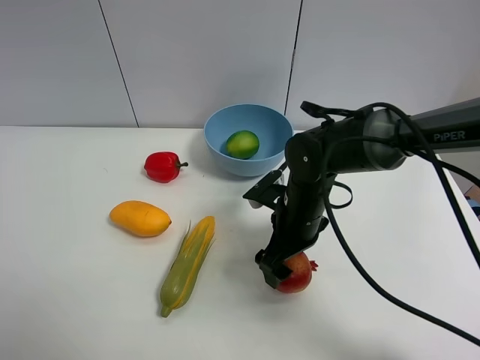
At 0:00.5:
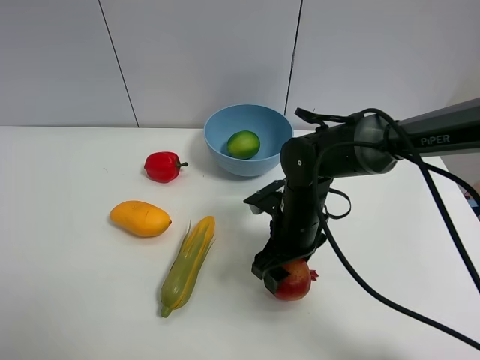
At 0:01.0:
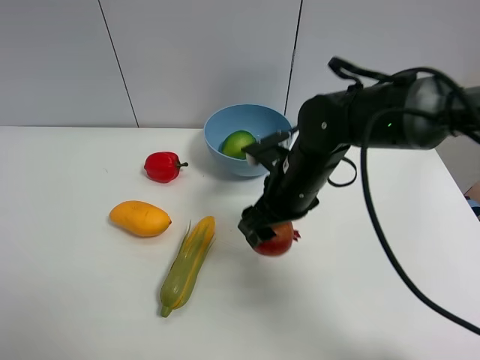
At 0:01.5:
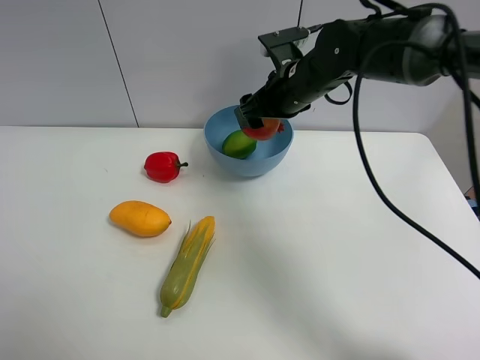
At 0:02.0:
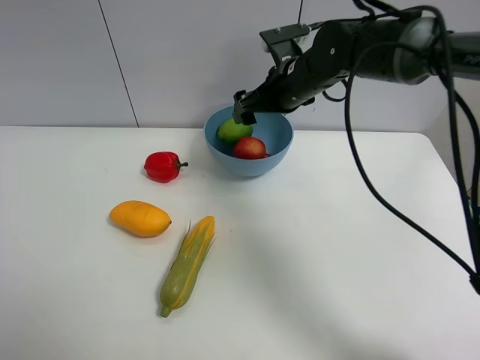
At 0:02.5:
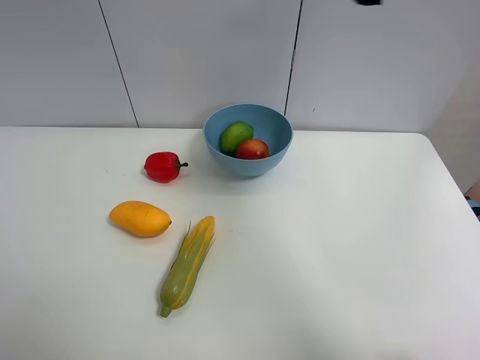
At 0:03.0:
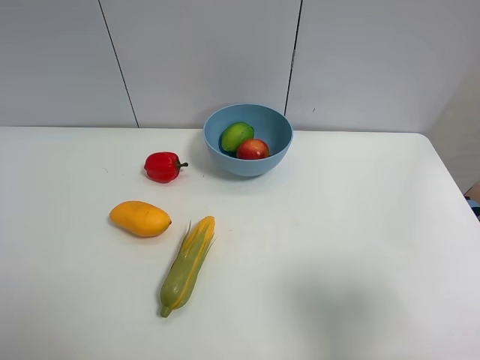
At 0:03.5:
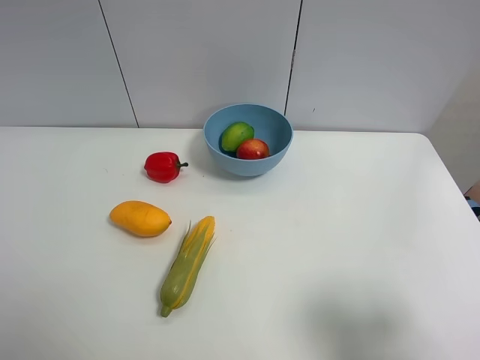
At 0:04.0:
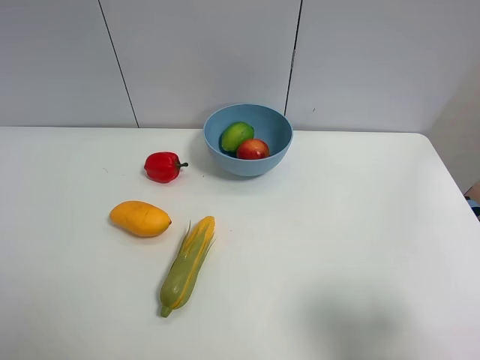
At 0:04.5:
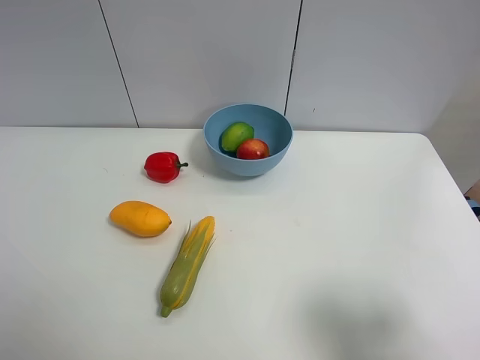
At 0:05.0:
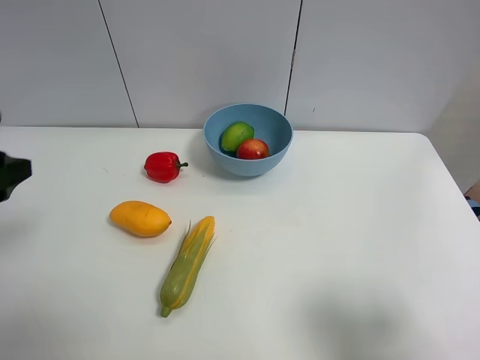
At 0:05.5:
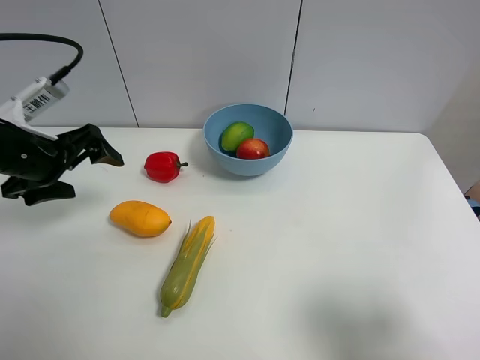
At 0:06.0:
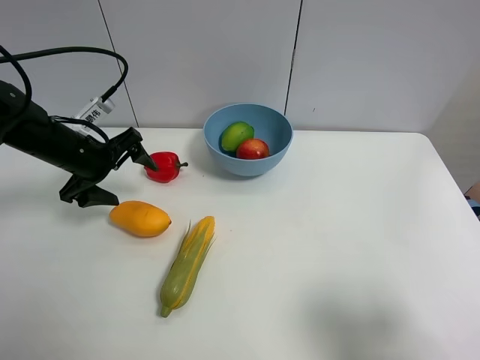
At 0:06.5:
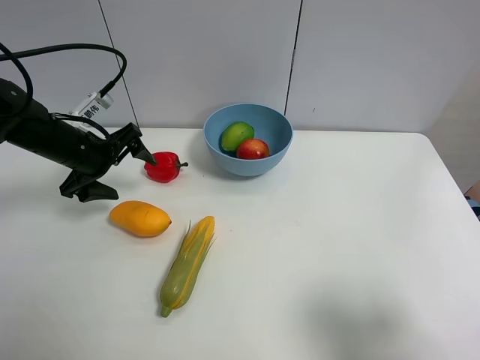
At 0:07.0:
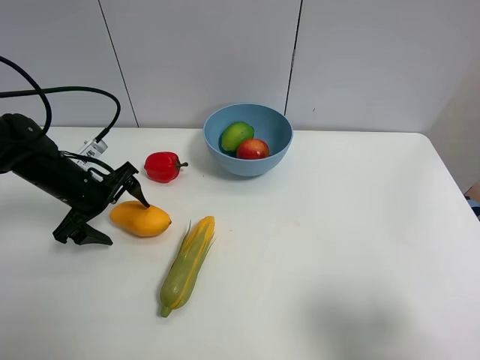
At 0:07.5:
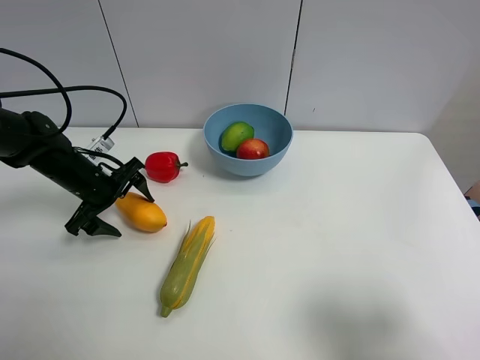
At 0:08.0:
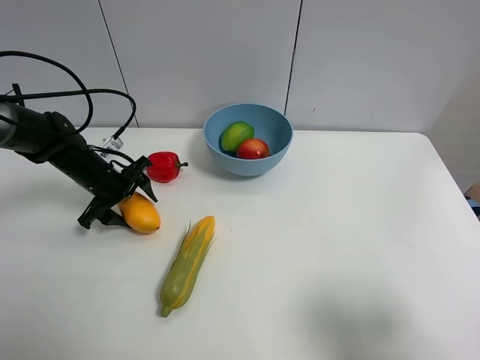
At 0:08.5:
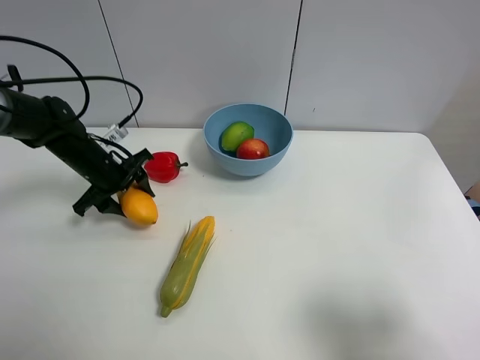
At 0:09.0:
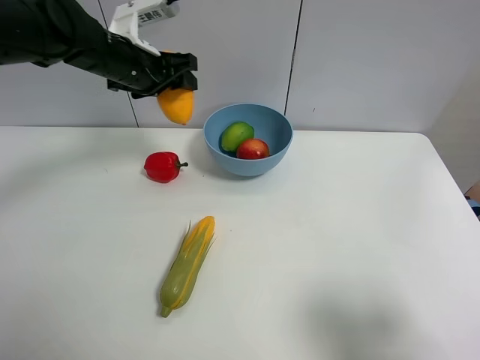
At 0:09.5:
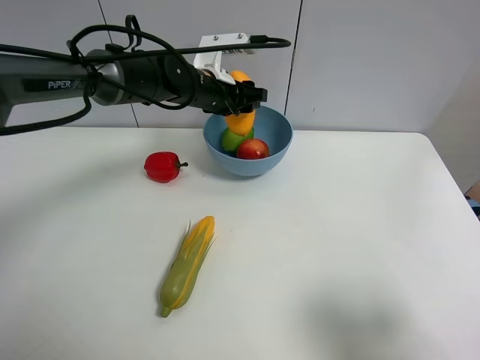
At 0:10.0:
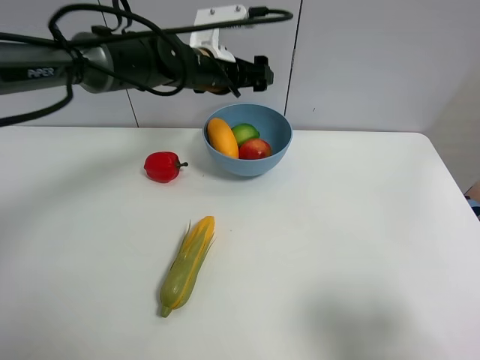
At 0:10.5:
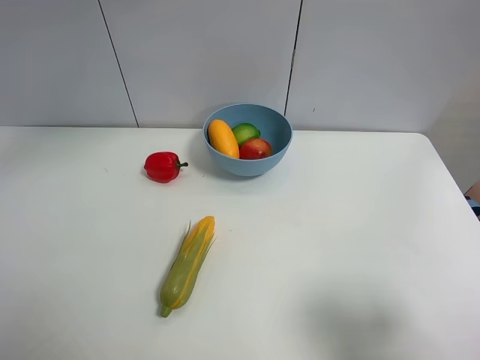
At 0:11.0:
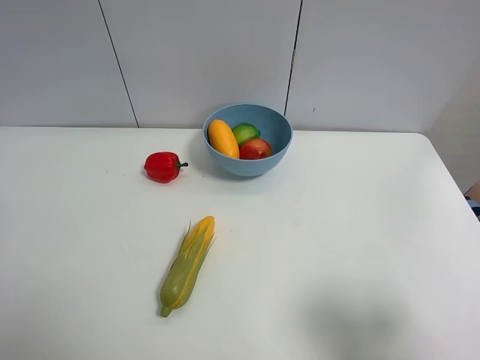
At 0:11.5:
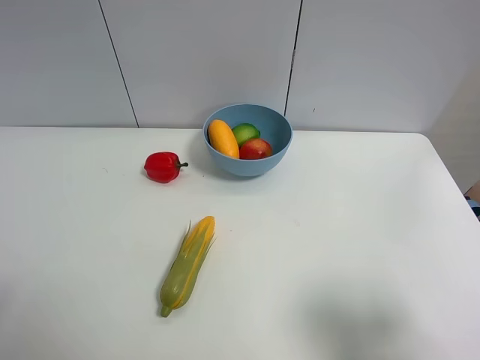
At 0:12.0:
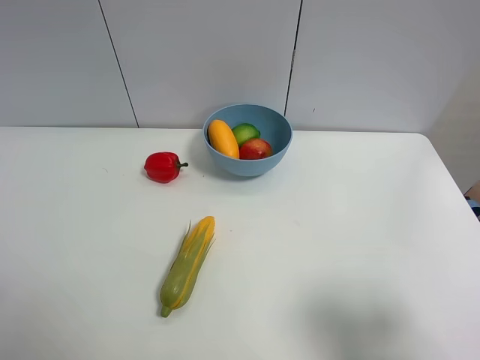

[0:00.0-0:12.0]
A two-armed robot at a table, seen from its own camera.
Task of the whole recording: Put the three fruits on the table into a bowl.
Step, 0:00.5 to 0:01.5: Place the pomegranate in the blue bowl with right gripper.
Step, 0:02.0 to 0:08.0: Grasp the mango with left gripper.
Step, 0:08.5 to 0:09.5: Place the mango in the blue bowl with left gripper.
0:00.0 to 0:02.0: The right gripper travels forward and upward by roughly 20 cm, and closes, then opens again.
0:02.0 to 0:04.0: The right gripper travels backward and to the right by about 40 cm.
0:04.0 to 0:06.0: The left gripper moves forward, about 35 cm.
0:06.0 to 0:08.0: The left gripper is displaced downward by about 10 cm, and closes up.
0:08.0 to 0:10.0: The left gripper heads to the right and upward, covering about 25 cm, and opens up.
0:10.0 to 0:12.0: The left gripper goes about 50 cm backward and to the left.
